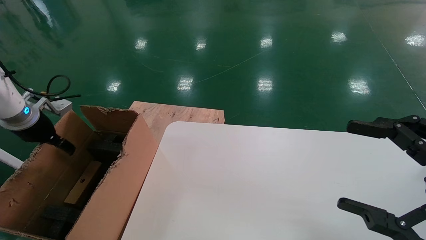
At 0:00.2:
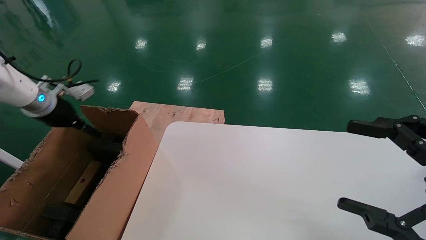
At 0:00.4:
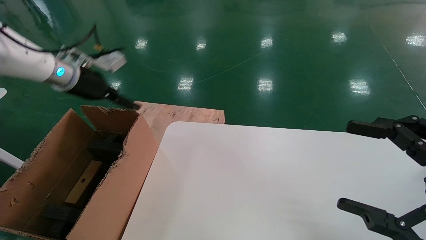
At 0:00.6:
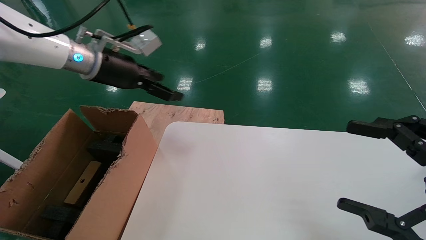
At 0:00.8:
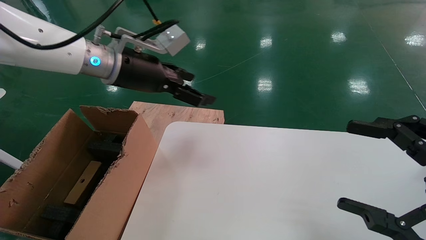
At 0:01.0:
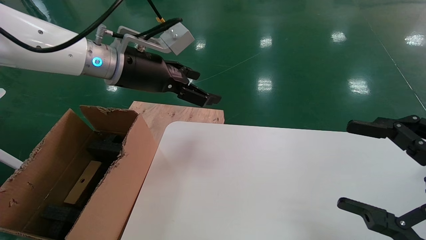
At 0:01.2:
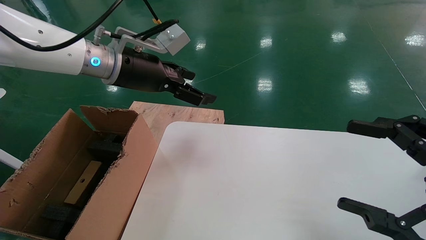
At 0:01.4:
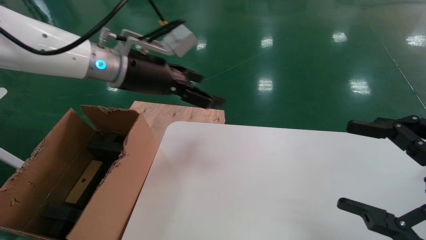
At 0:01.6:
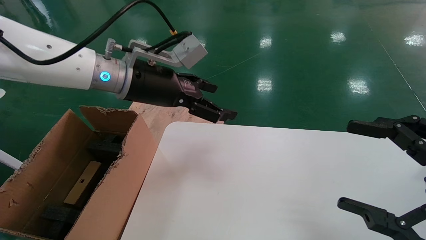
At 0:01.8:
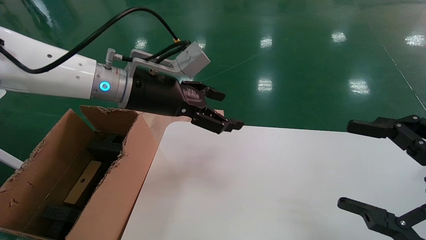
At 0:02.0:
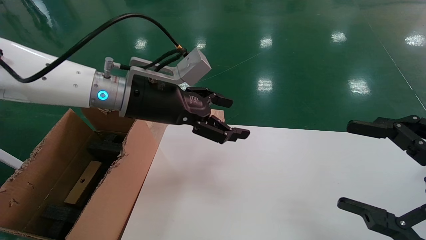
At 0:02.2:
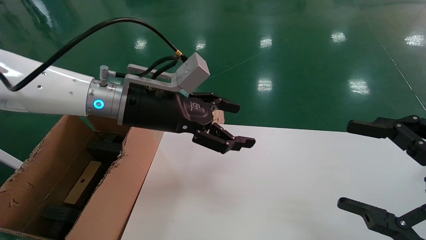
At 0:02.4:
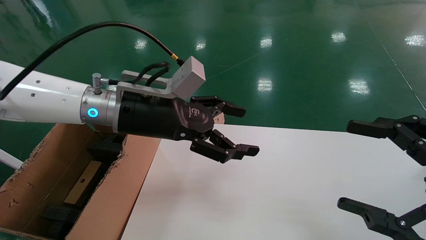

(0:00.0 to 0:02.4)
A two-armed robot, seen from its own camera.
Task of the whole recording: place the small box on the table into the large box on the left.
0:00.0 - 0:01.2: The left gripper travels to the right and upward by approximately 30 cm.
0:01.2 - 0:02.4: The left gripper travels downward and backward by about 10 cm.
